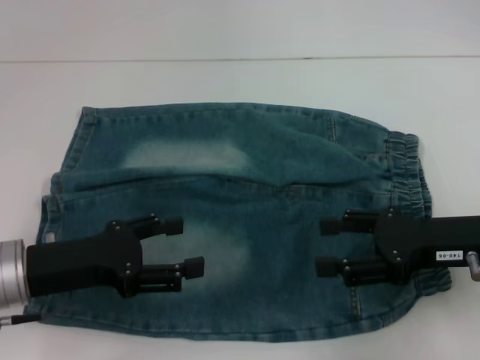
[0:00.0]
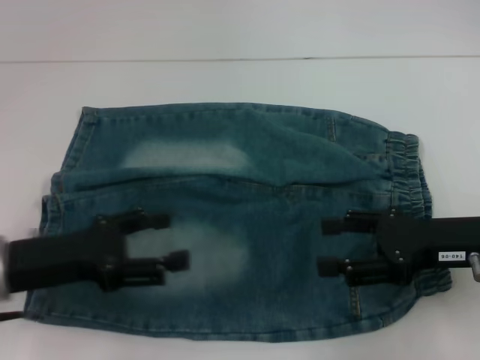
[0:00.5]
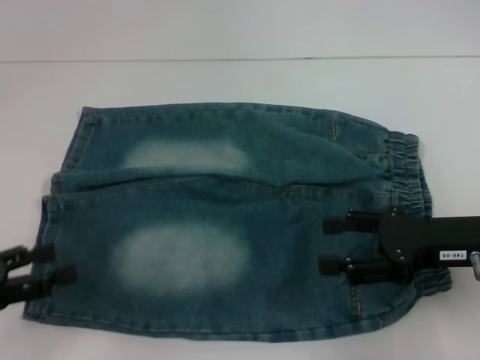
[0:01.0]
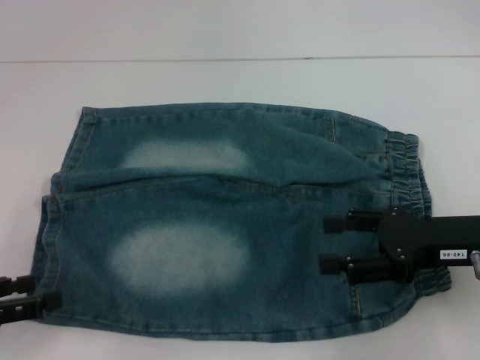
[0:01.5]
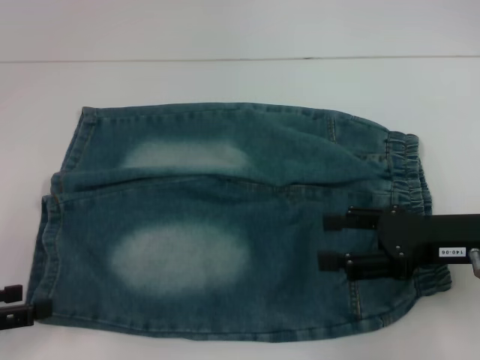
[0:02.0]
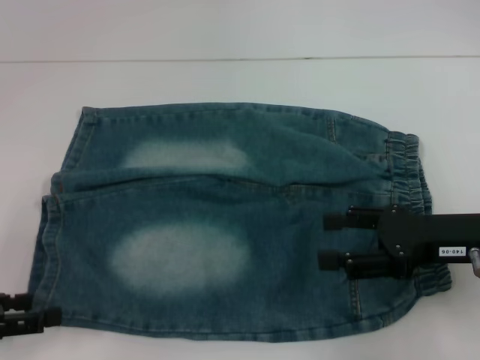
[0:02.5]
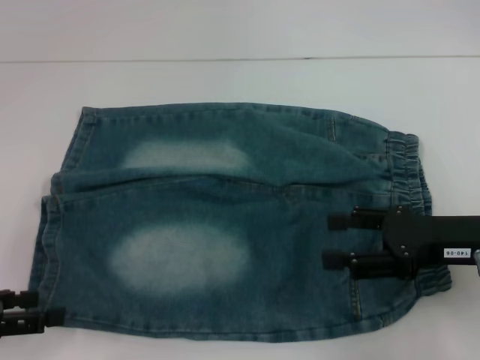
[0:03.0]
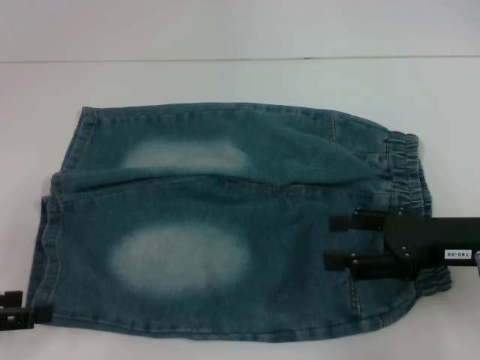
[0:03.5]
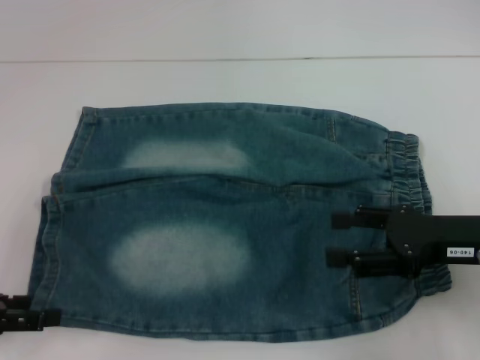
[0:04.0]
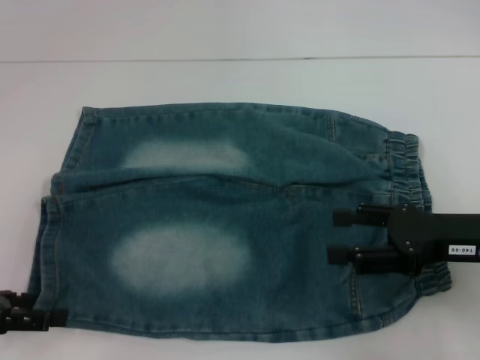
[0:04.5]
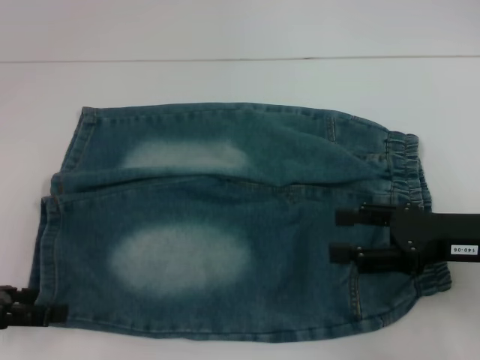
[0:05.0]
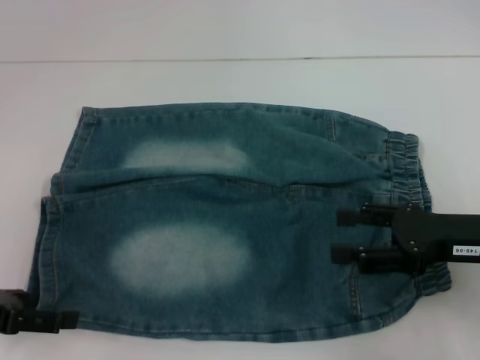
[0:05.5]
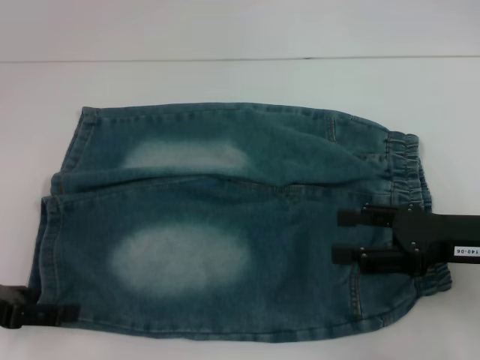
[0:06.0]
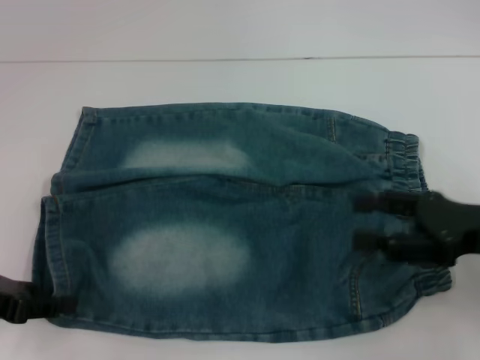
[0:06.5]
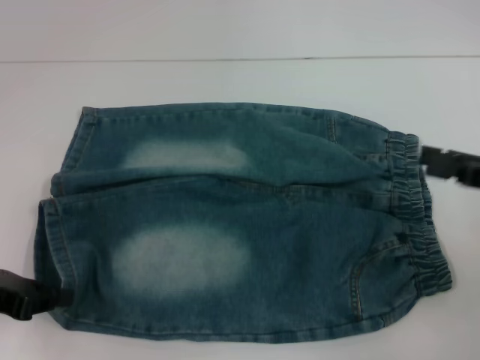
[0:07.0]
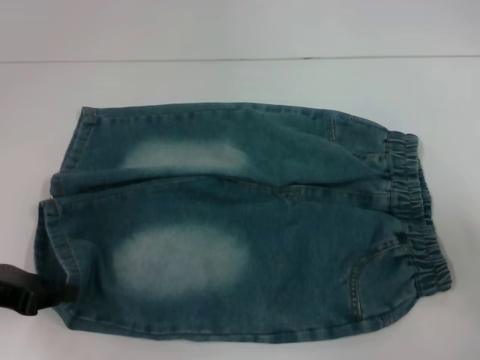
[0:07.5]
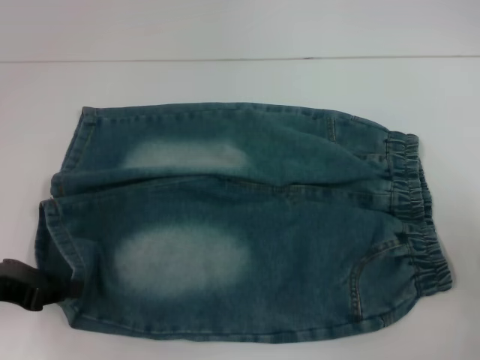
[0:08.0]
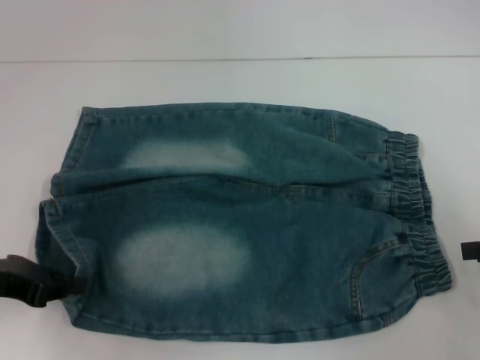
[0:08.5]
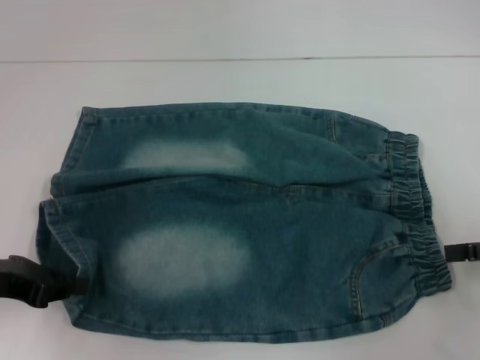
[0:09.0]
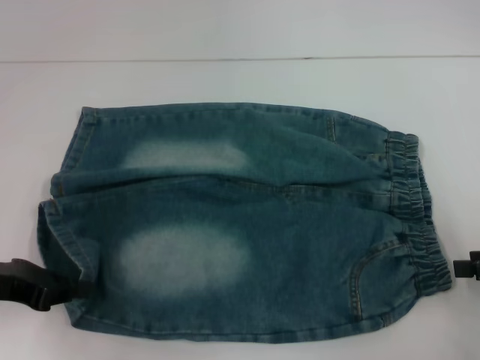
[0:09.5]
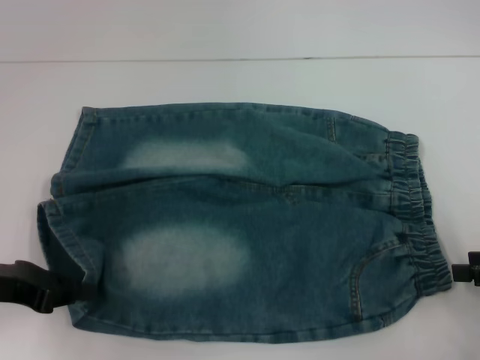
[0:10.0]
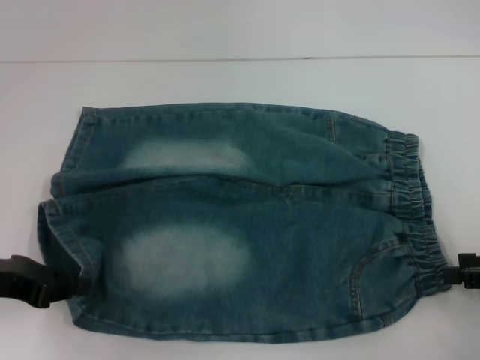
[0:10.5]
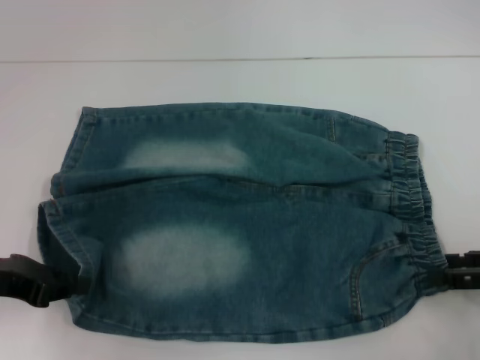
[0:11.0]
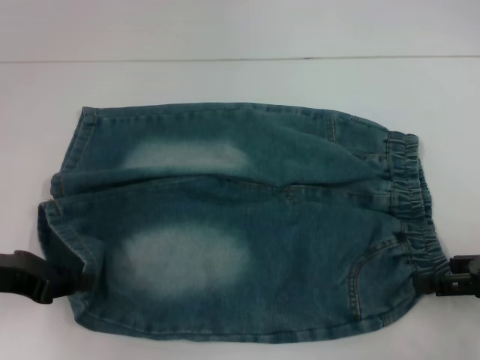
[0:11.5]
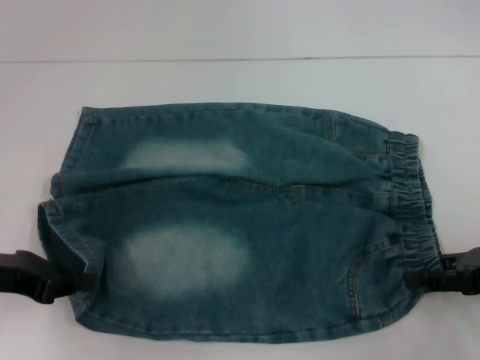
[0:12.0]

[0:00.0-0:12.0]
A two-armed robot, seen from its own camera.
Step, 0:00.0 to 0:06.5: Grab the lower left pant leg with your left hand.
0:00.0 to 0:02.0: The left gripper shifts about 15 cm to the left and backward.
0:02.0 to 0:06.0: The grippers move only a little.
0:06.0 to 0:08.0: The left gripper closes its fingers, while the right gripper shifts approximately 15 cm to the right.
0:08.0 to 0:10.0: The grippers stay close to where they were, moving slightly.
0:10.0 to 0:12.0: The right gripper ends up approximately 5 cm from where it was.

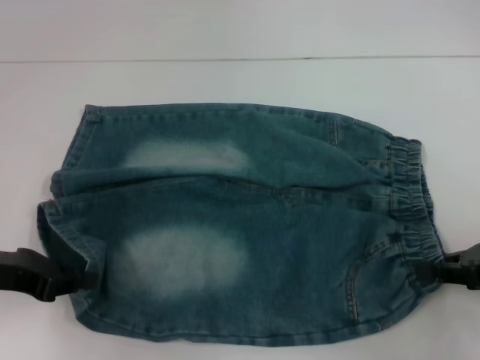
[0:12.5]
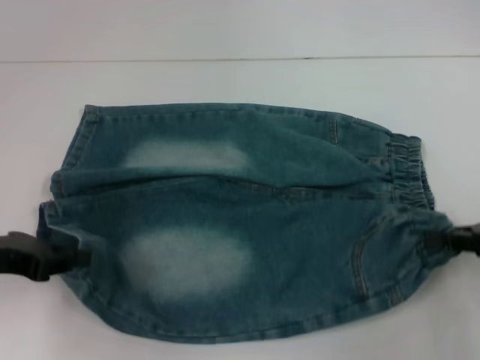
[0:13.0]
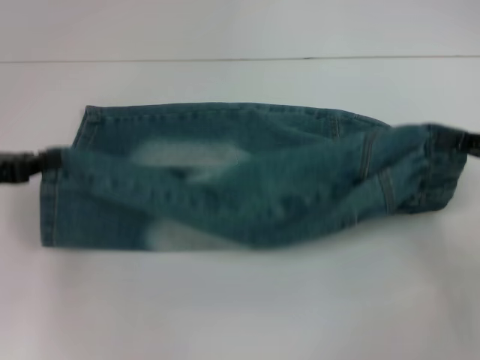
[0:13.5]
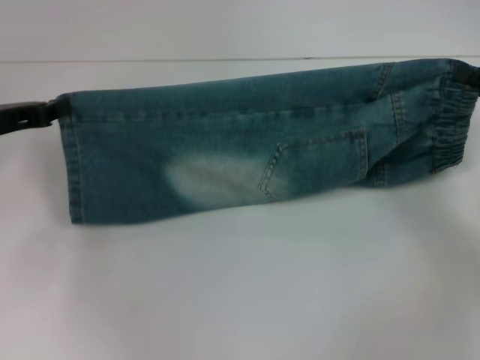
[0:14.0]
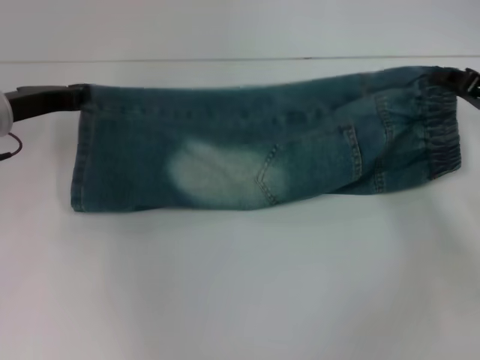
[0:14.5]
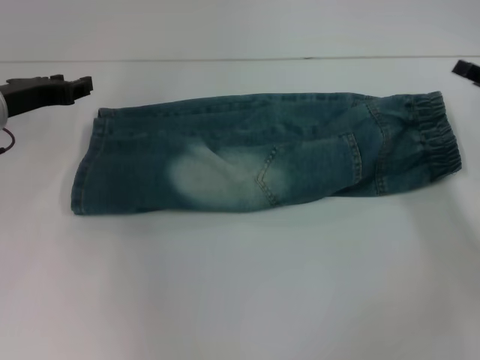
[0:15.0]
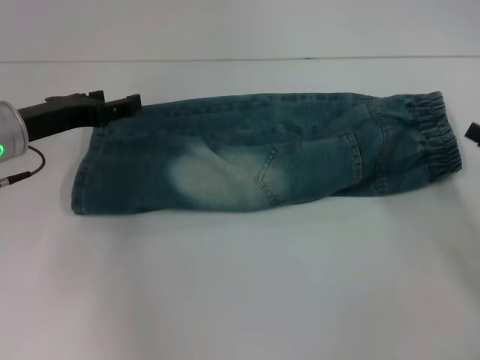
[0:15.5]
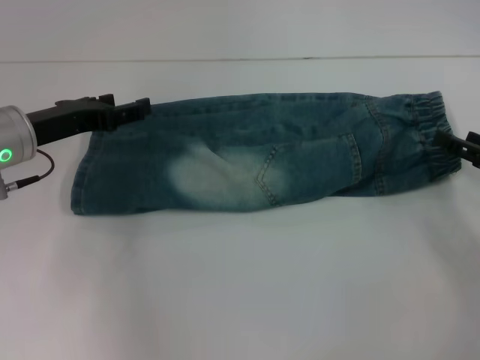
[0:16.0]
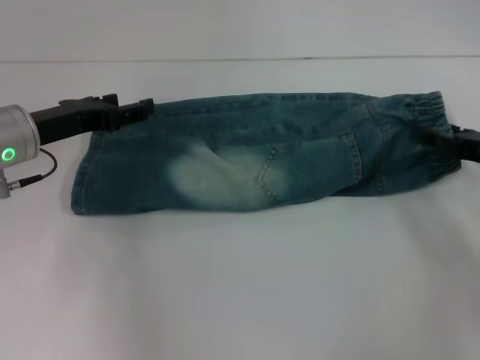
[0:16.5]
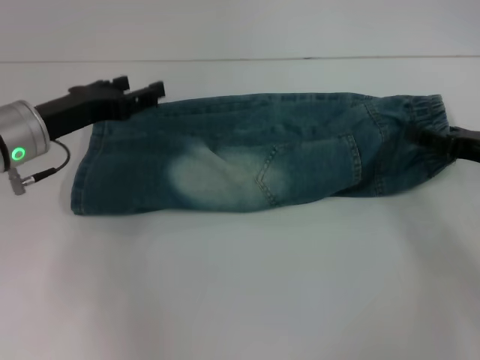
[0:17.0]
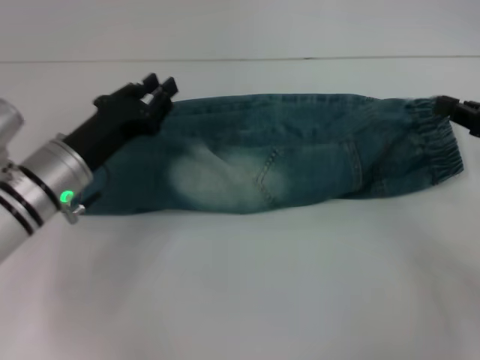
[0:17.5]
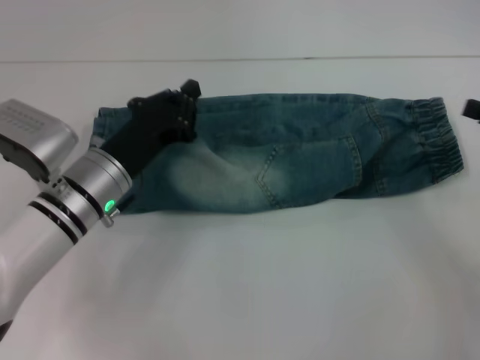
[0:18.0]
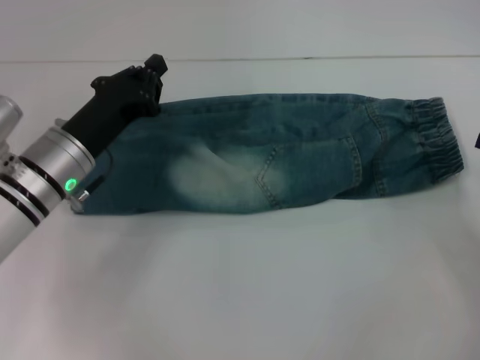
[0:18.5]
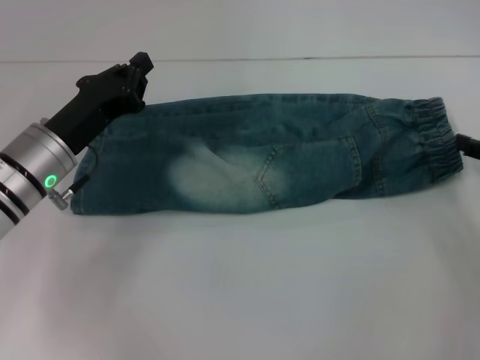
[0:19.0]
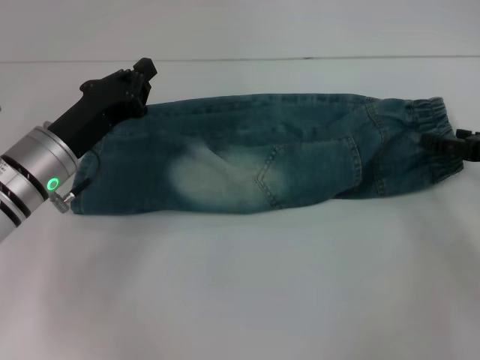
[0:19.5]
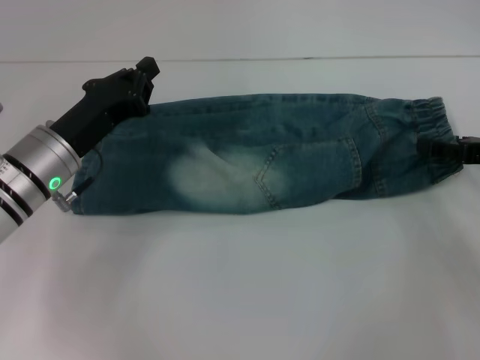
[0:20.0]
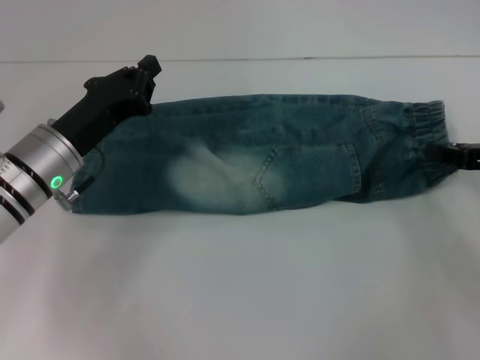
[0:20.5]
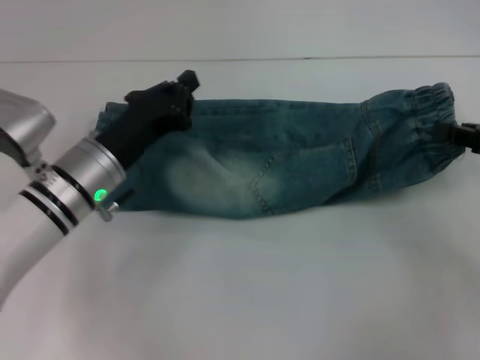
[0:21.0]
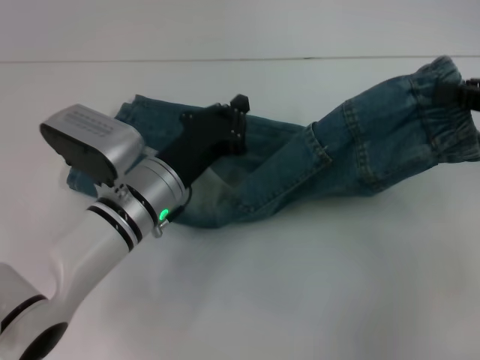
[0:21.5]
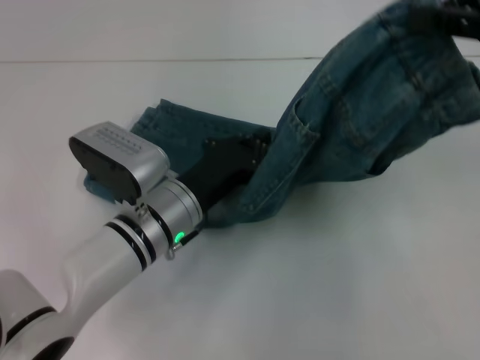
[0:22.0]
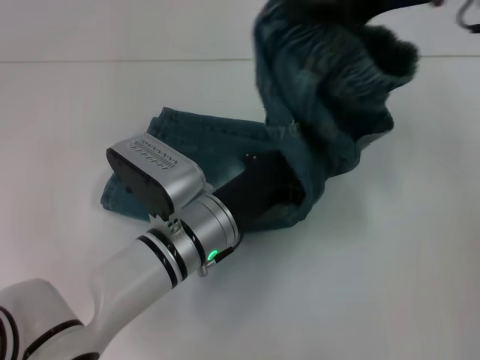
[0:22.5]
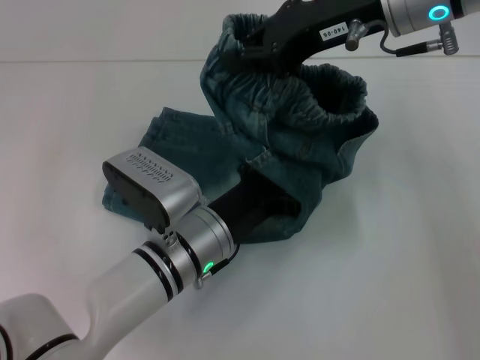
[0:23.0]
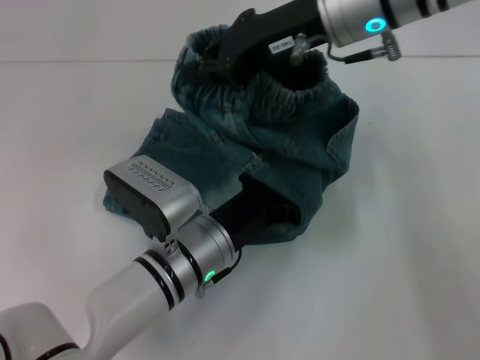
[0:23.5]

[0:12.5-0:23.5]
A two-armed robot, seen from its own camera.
Step, 0:12.5 to 0:14.5: Fold upward with your left hand.
Step, 0:15.0 to 0:20.5: Grab the waistband with your right hand.
0:12.5 to 0:14.5: The two grippers go about 10 cm forward.
0:14.5 to 0:16.0: The left gripper opens up. Meanwhile the right gripper is displaced backward by about 5 cm, and opens.
0:16.0 to 0:18.0: The left gripper travels to the right and downward by about 10 cm, and closes its fingers, while the right gripper is displaced upward by approximately 5 cm, and closes up.
0:18.0 to 0:20.0: The left gripper shifts by some 5 cm. The right gripper shifts by some 5 cm, and opens up.
0:20.0 to 0:21.5: The left gripper travels to the right by about 10 cm, while the right gripper is displaced upward by about 10 cm, and closes its fingers.
0:21.5 to 0:23.5: The left gripper moves about 5 cm. Meanwhile the right gripper moves to the left and forward, some 25 cm.

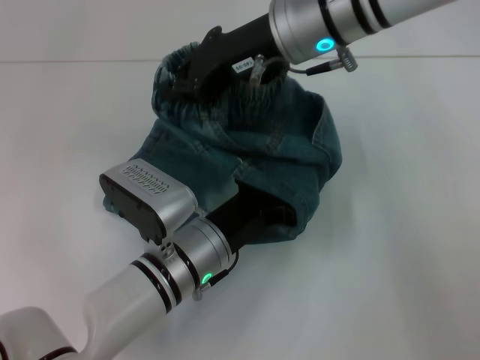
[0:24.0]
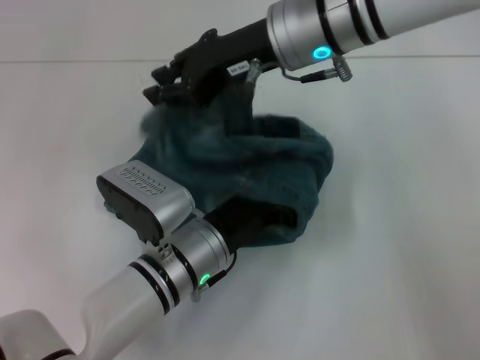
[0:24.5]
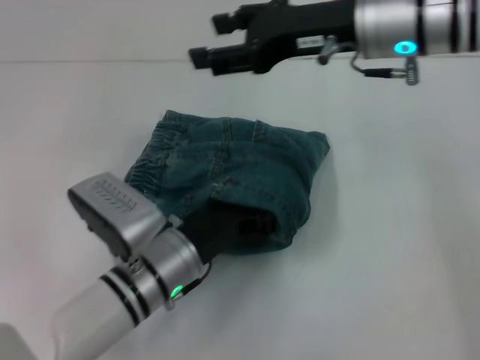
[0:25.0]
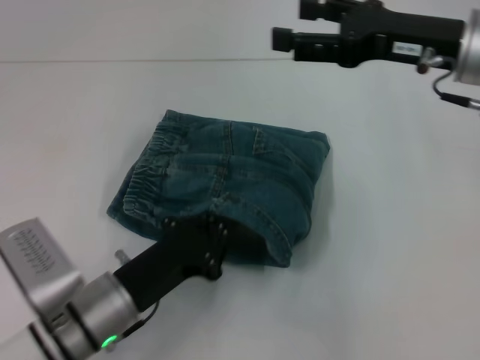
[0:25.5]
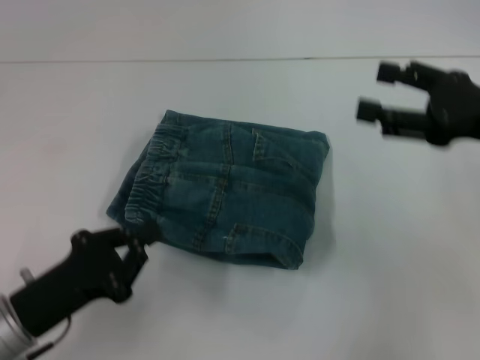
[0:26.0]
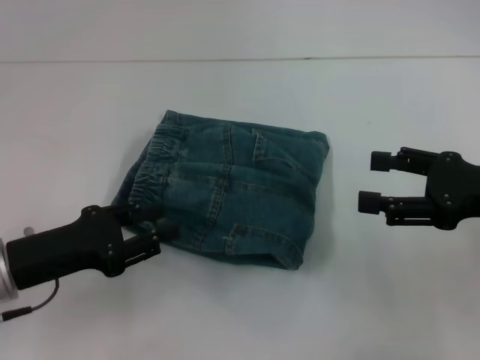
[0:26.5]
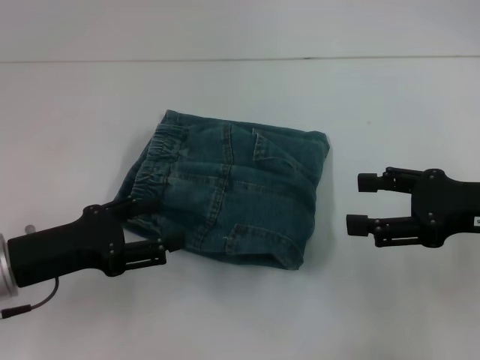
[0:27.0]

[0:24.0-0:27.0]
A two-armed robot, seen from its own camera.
0:24.0 to 0:25.5: The right gripper shifts approximately 15 cm to the right, and opens up; the left gripper moves to the left, approximately 10 cm.
0:25.5 to 0:27.0: The right gripper heads backward, downward and to the right, covering roughly 15 cm; the left gripper goes roughly 10 cm to the left and upward, and opens its fingers.
